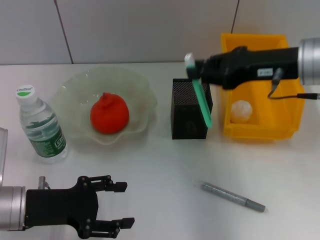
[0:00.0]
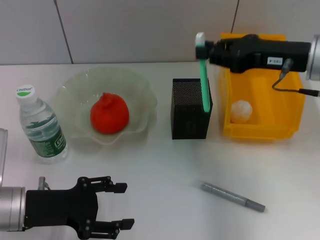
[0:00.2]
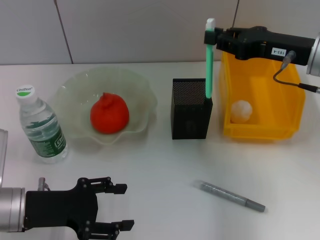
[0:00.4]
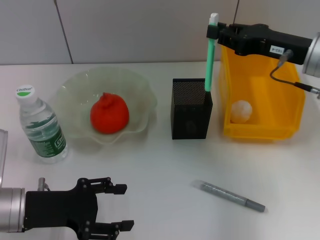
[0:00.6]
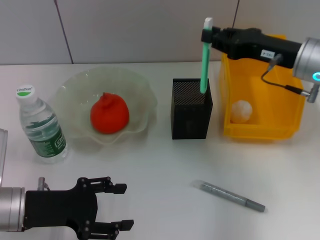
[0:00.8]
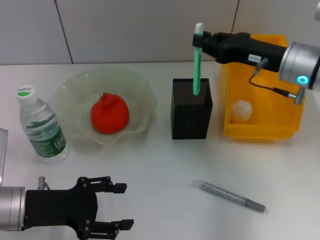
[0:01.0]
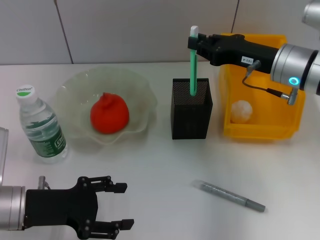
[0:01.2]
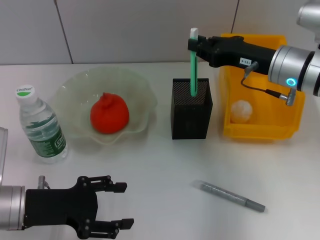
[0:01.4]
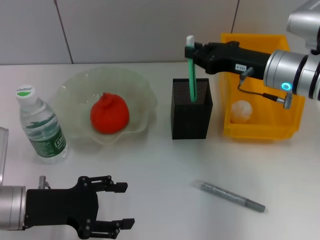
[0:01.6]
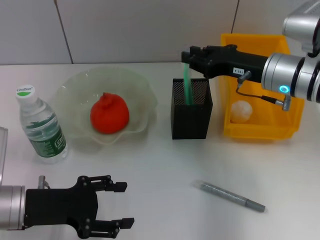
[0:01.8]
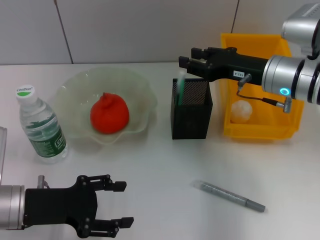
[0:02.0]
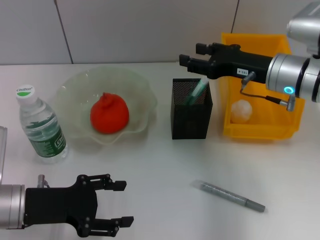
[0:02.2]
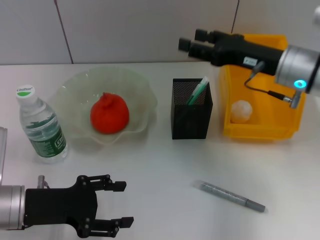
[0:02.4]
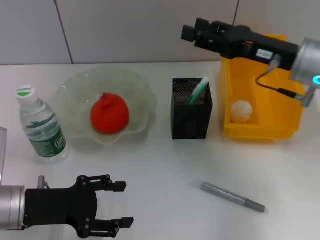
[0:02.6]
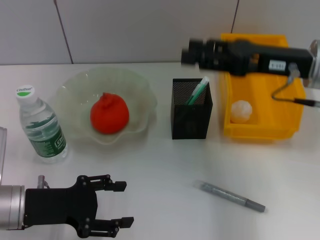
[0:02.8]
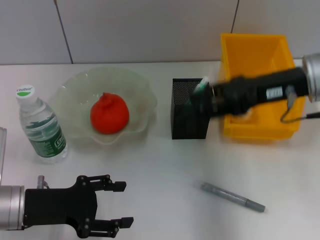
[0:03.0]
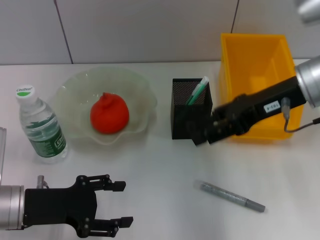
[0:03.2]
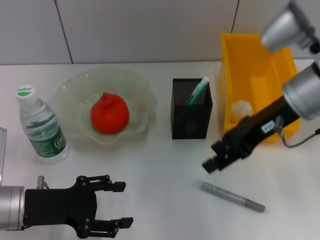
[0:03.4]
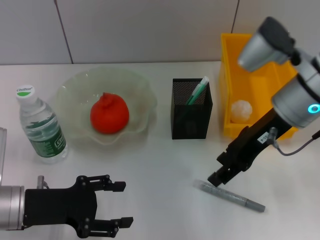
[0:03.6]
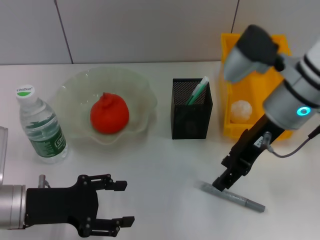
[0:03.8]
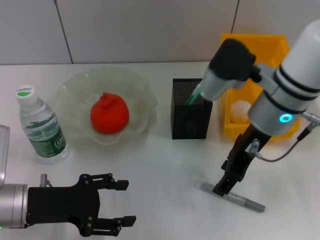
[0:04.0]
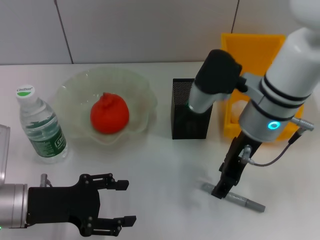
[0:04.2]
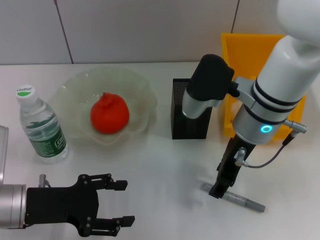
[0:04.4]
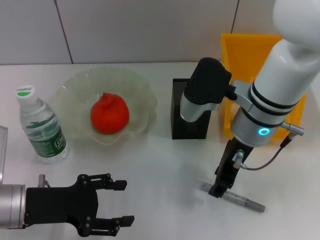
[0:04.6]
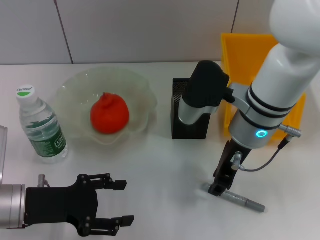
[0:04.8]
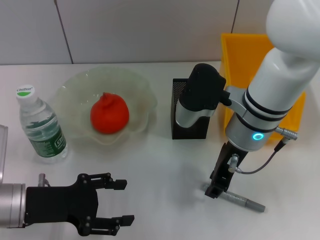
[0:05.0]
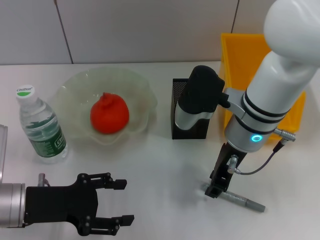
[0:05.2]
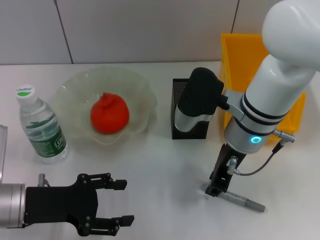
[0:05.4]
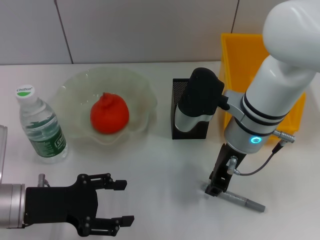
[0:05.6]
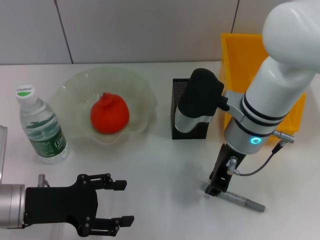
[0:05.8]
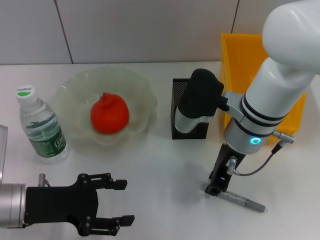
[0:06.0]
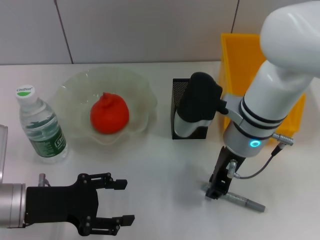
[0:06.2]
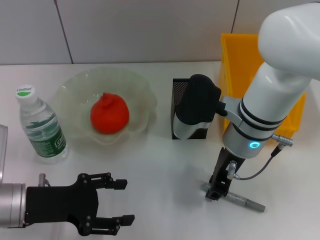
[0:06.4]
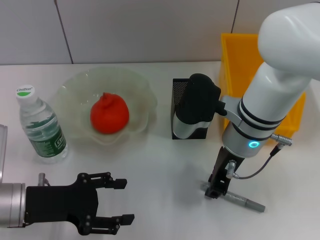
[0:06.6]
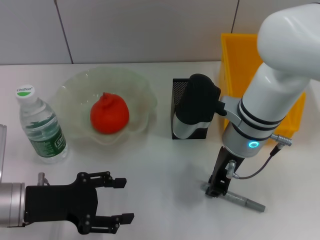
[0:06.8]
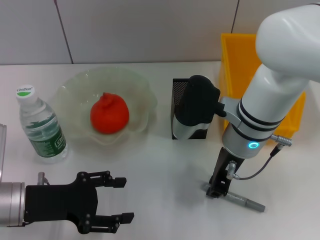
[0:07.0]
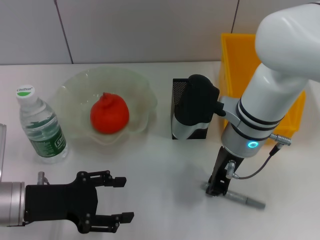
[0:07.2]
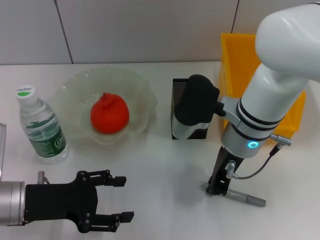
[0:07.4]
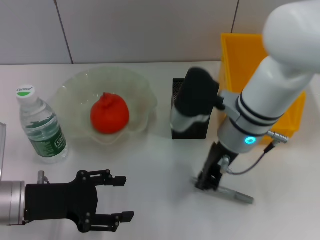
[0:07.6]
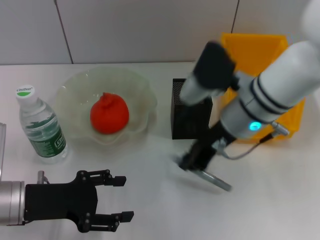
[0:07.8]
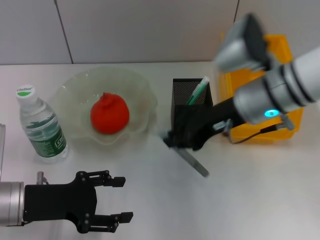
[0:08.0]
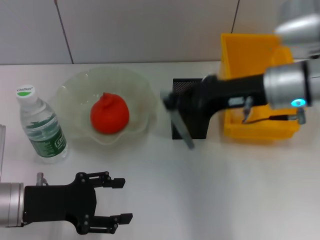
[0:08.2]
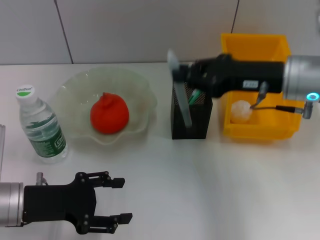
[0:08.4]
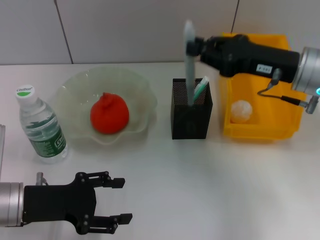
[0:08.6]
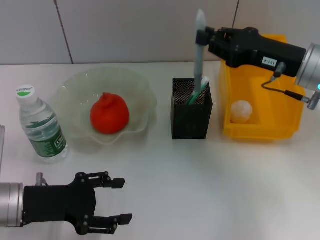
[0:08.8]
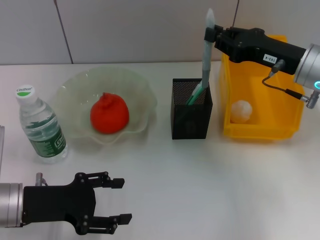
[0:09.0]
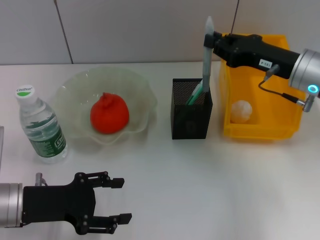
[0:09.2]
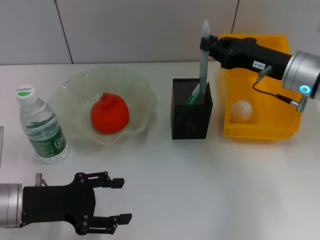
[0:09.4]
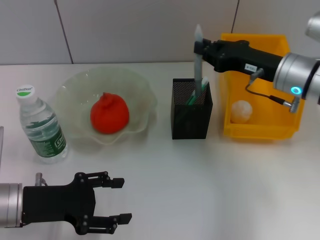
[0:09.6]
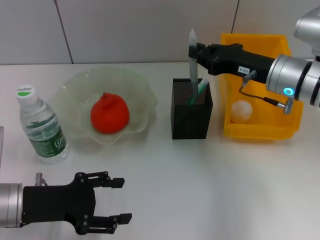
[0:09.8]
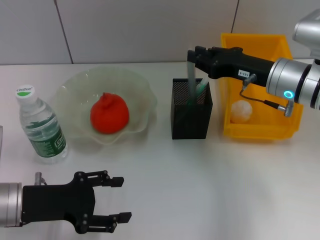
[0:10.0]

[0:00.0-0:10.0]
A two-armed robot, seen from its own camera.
Step, 0.0 to 2.2 s: Place the blue utility knife into the pen holder with the right hand.
Step, 2.4 to 7.2 s: Grab the gray glue with the right hand.
0.0 to 1.4 s: The right gripper goes some 5 cm downward.
1.4 to 2.8 s: The right gripper heads upward, covering approximately 5 cm, and opens its fingers.
2.8 to 4.2 s: The right gripper goes approximately 10 cm to the left.
4.2 to 5.8 s: The right gripper closes up.
5.8 to 7.2 s: The two grippers keep their place.
7.2 to 8.6 s: The right gripper travels to the right by roughly 10 cm.
8.6 to 10.0 s: The right gripper shifts by about 5 cm.

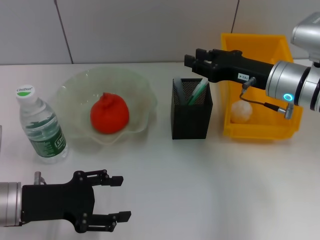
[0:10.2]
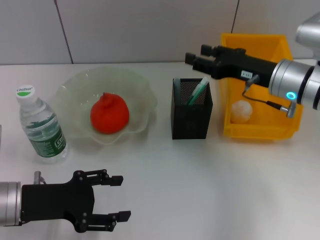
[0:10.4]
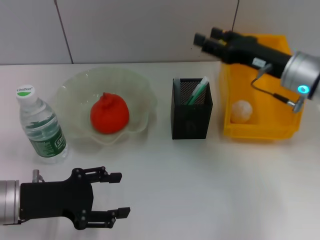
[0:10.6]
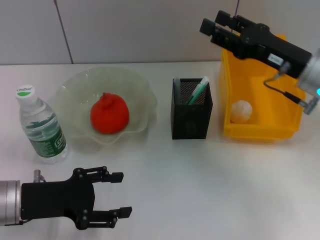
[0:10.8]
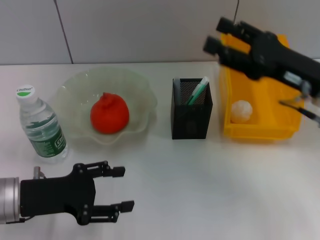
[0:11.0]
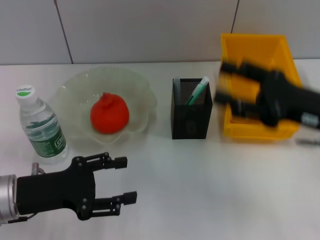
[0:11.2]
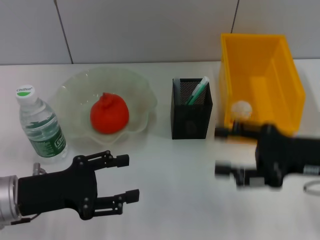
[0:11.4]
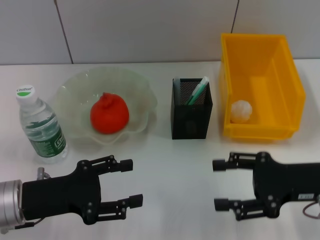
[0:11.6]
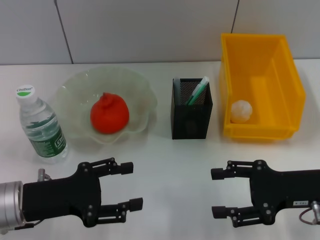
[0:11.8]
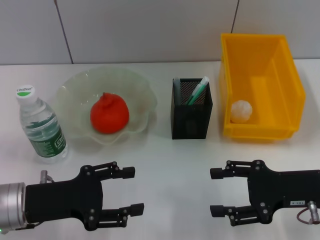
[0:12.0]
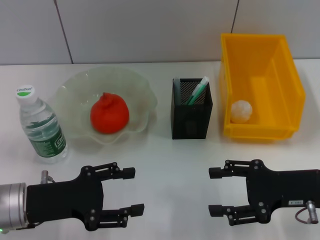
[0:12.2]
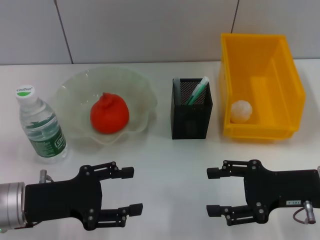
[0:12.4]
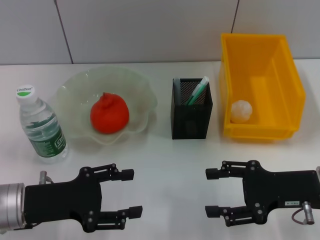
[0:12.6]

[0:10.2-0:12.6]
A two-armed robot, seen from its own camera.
10.2 to 11.4 s: The right gripper shifts some 15 cm backward and to the right, and opens up.
11.4 to 12.6 s: The grippers move only a little.

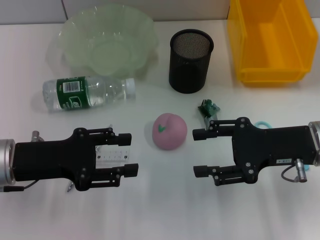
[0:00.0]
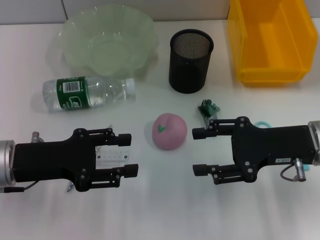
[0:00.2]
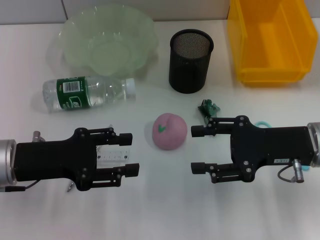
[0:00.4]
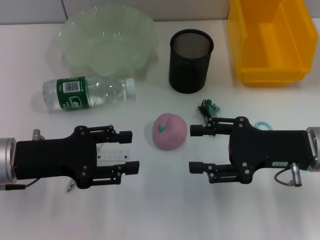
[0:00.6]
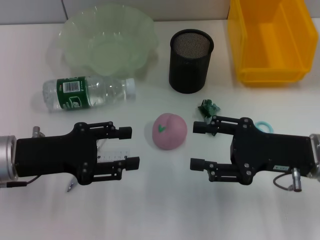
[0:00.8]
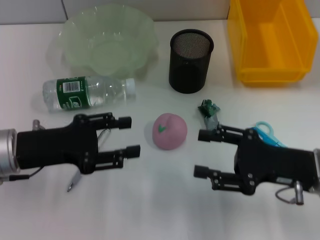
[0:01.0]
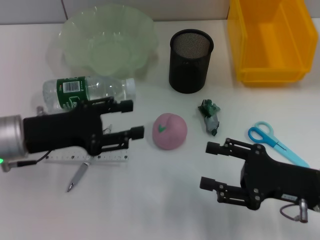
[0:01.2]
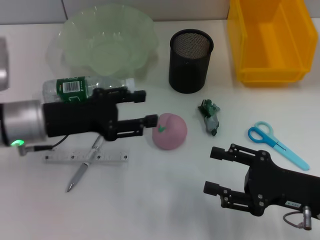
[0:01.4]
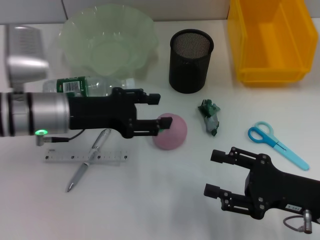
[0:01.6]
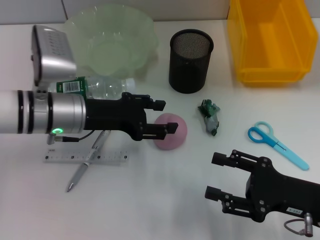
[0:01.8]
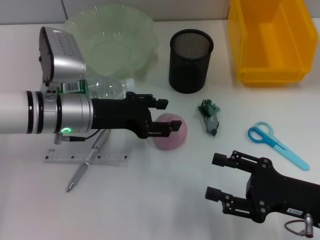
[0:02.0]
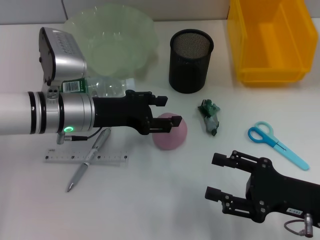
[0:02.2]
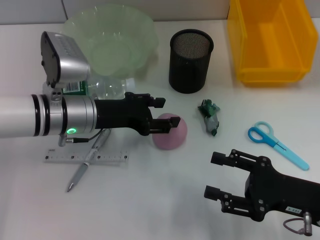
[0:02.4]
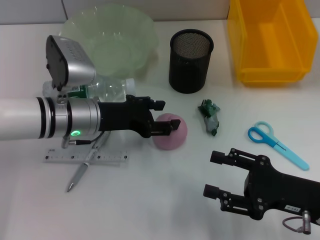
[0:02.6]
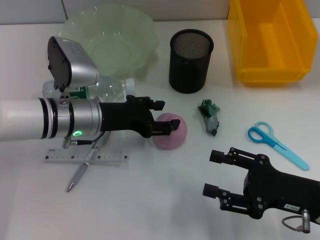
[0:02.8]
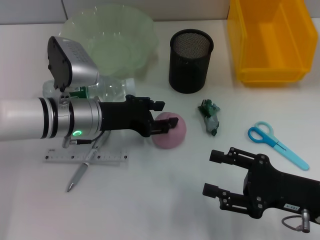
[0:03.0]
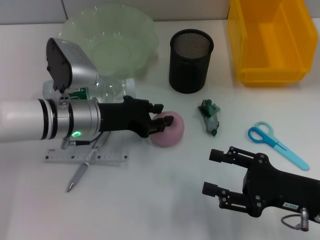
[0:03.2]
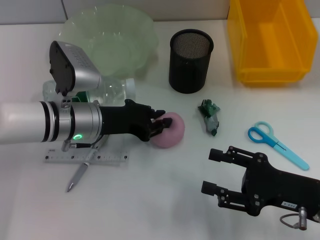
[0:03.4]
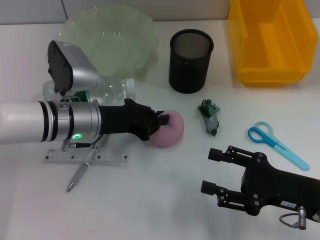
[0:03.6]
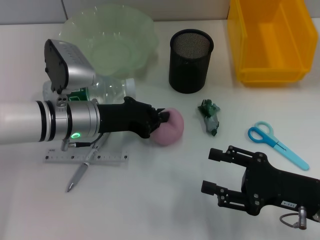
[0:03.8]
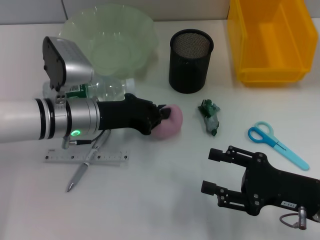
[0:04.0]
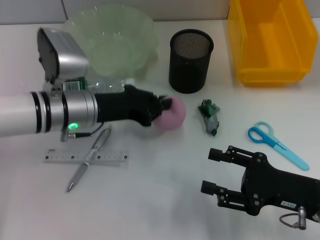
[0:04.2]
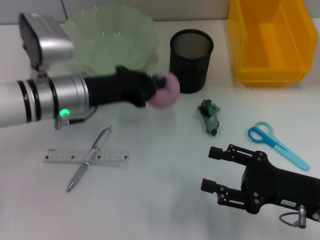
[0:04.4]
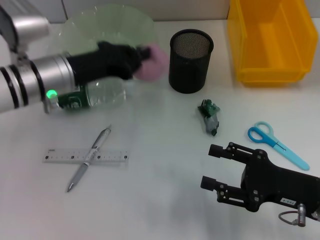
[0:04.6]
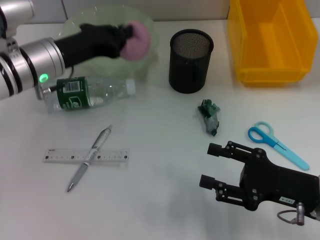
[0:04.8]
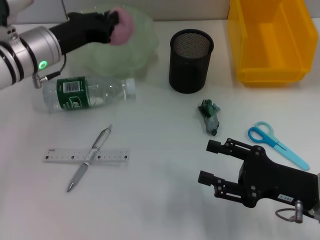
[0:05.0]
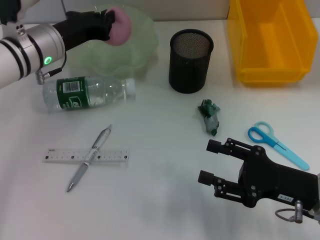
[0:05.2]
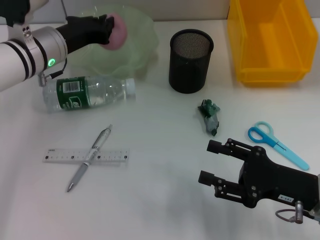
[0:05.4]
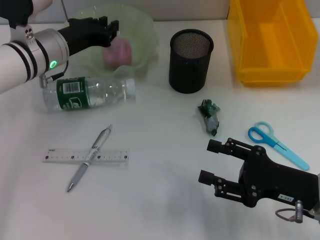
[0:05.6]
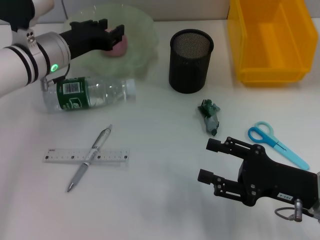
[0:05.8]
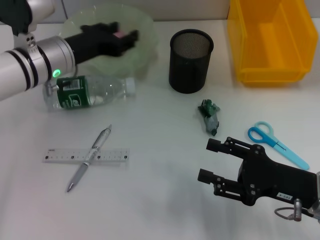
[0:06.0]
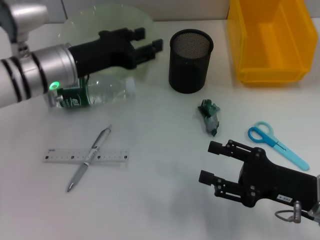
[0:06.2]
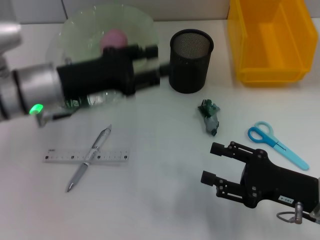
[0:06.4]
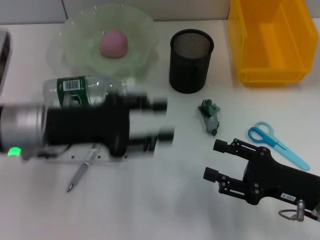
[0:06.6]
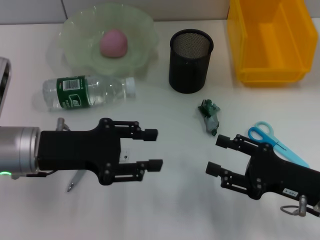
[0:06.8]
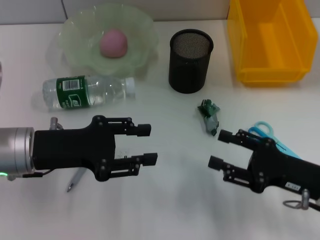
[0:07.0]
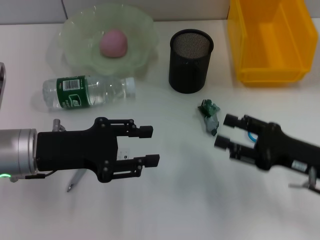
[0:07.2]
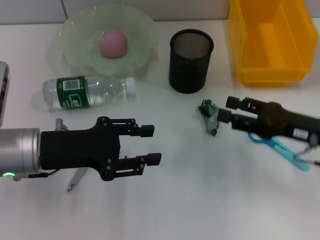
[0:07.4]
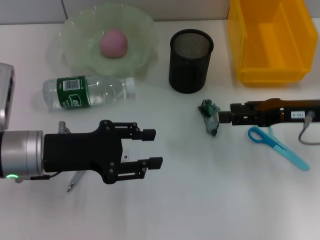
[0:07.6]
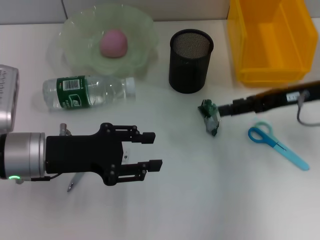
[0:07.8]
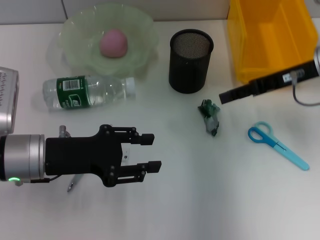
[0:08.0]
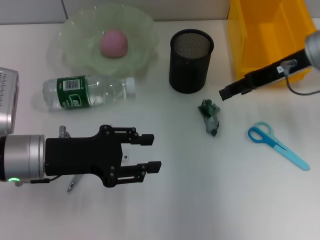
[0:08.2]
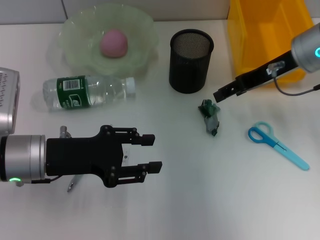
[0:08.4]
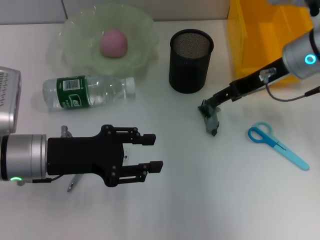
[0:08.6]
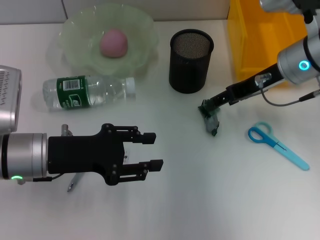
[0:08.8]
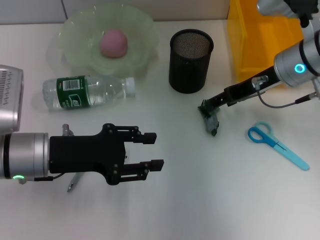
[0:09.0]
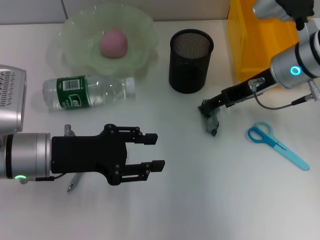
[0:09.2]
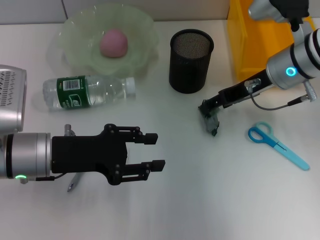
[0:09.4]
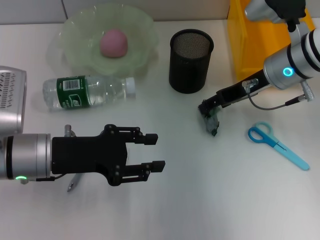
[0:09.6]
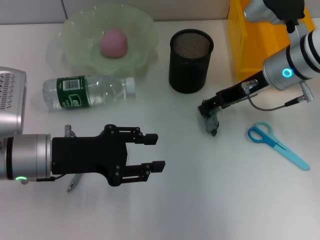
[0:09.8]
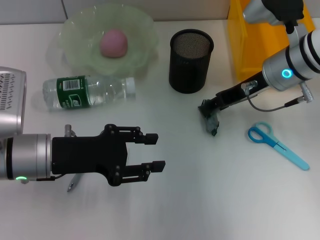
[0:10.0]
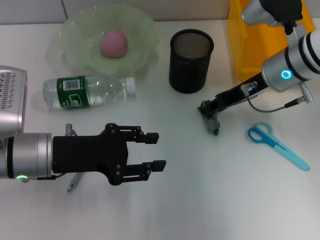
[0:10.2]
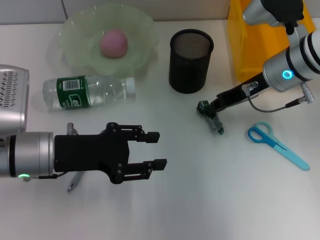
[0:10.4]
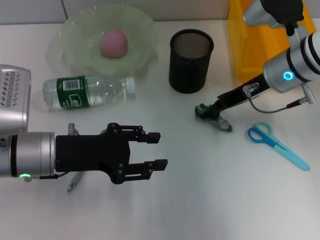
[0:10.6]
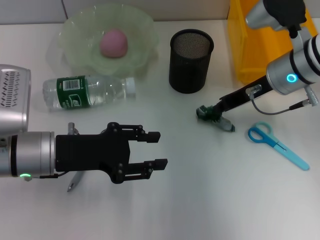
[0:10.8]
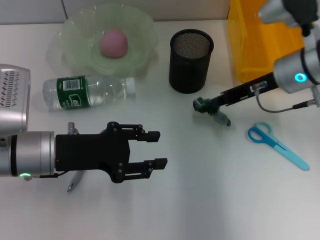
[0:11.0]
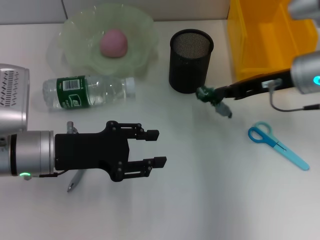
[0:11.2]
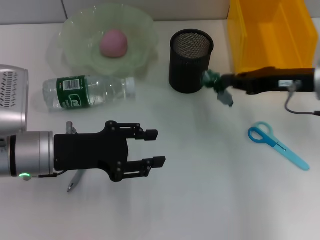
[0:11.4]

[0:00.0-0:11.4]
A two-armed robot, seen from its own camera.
Step, 0.0 to 3.6 s: Grab the peach with the left hand.
Step, 3.8 to 5.6 s: Place the peach into the fruit bowl with the left hand.
Step, 6.0 to 10.6 s: Grab the plastic with the right hand.
0.0 to 1.4 s: The right gripper heads backward and downward, covering roughly 10 cm, while the left gripper shifts by some 5 cm.
1.4 to 2.8 s: The left gripper is displaced to the right by approximately 5 cm.
2.8 to 4.2 s: The left gripper closes up.
4.2 to 5.6 s: The left gripper moves forward, roughly 5 cm.
5.6 to 7.2 s: The left gripper heads backward, covering roughly 15 cm, and opens up.
7.2 to 8.6 s: The right gripper heads forward and upward, covering approximately 20 cm.
8.6 to 10.0 s: The grippers make only small movements.
10.0 to 11.4 s: The right gripper is displaced to the right and backward by some 10 cm, and closes up.
